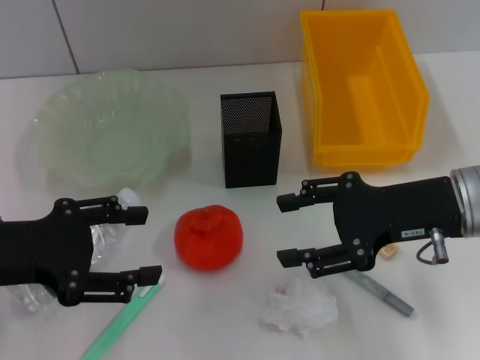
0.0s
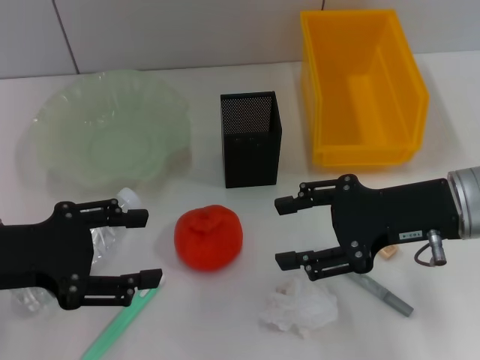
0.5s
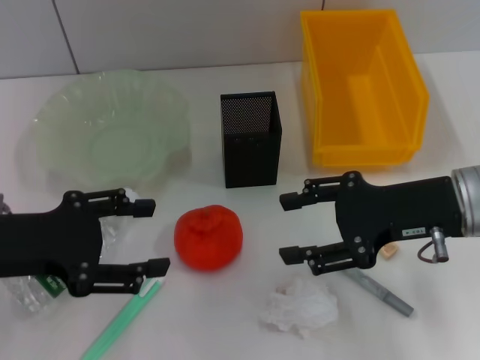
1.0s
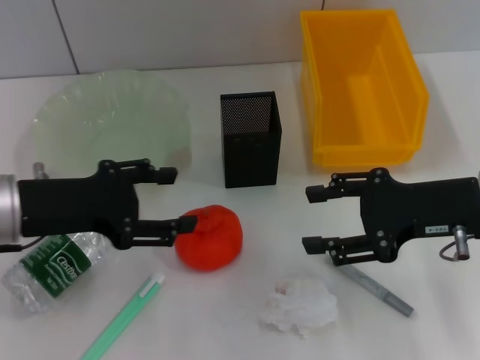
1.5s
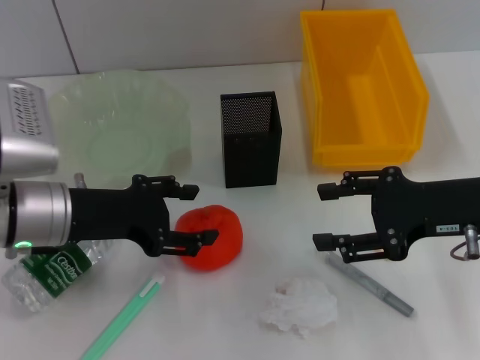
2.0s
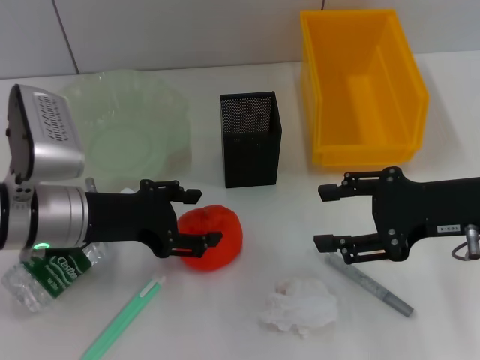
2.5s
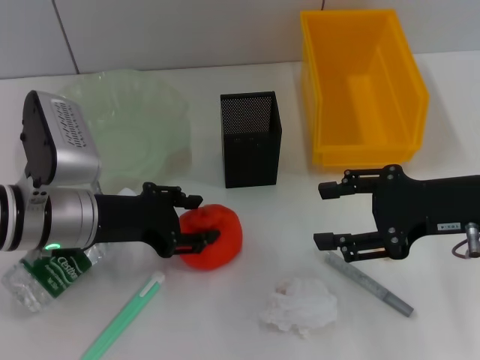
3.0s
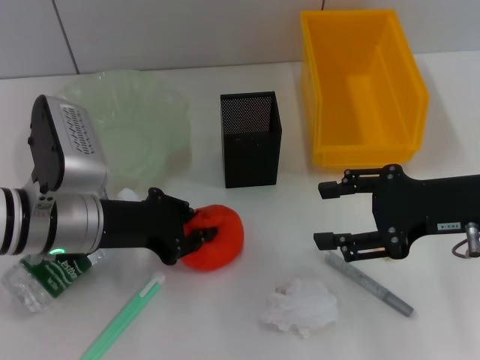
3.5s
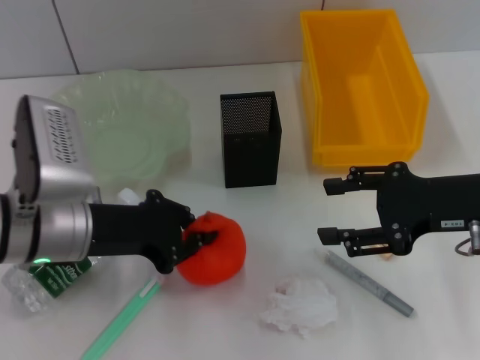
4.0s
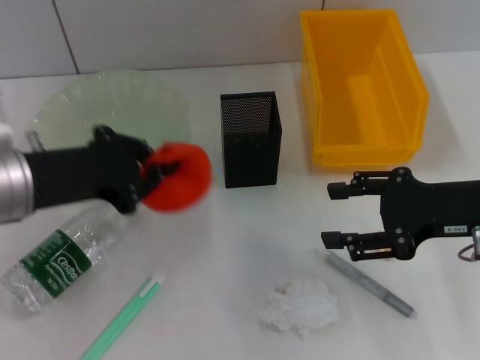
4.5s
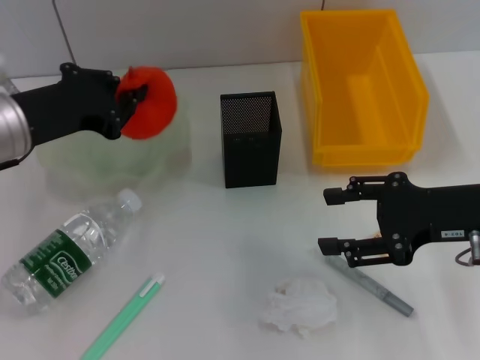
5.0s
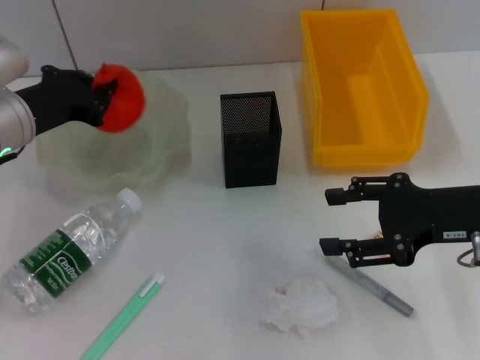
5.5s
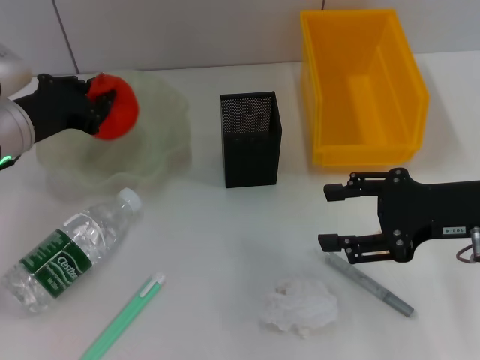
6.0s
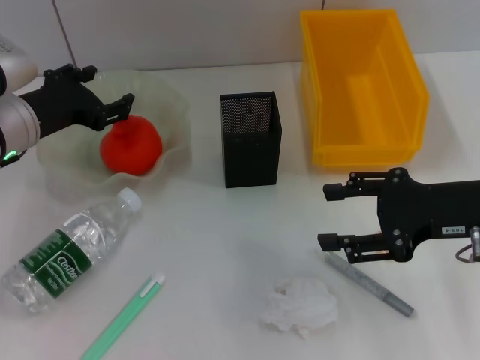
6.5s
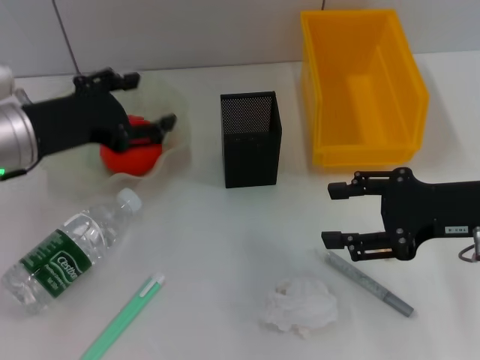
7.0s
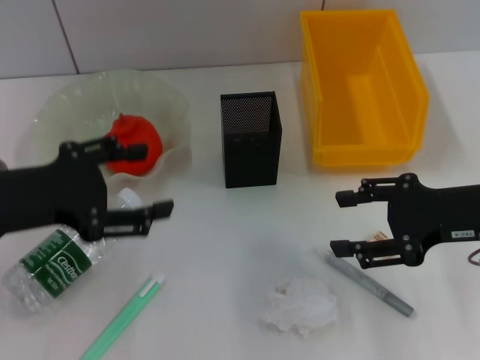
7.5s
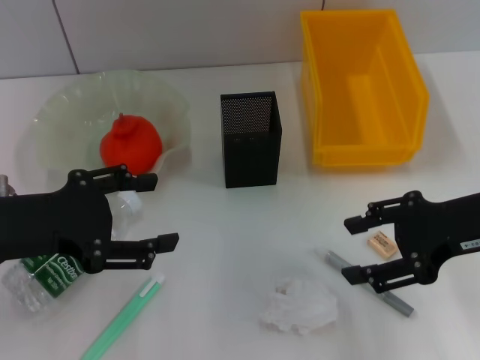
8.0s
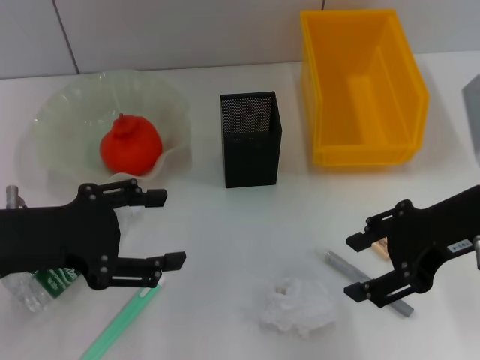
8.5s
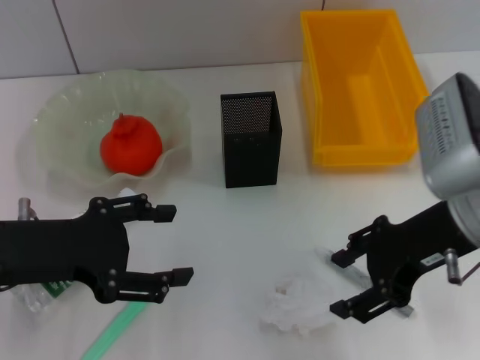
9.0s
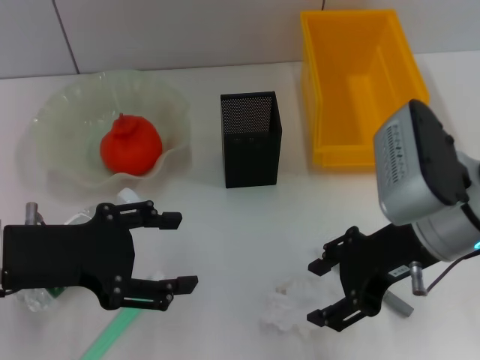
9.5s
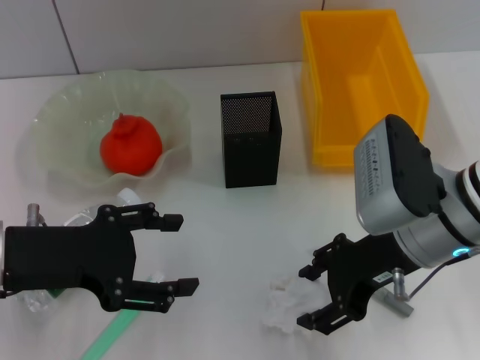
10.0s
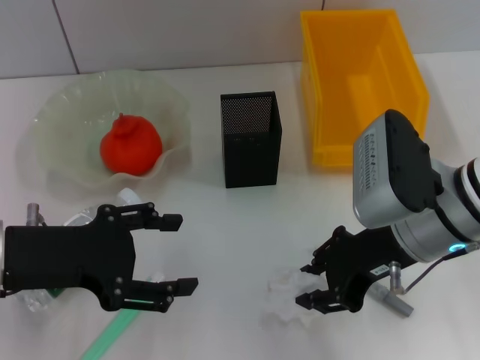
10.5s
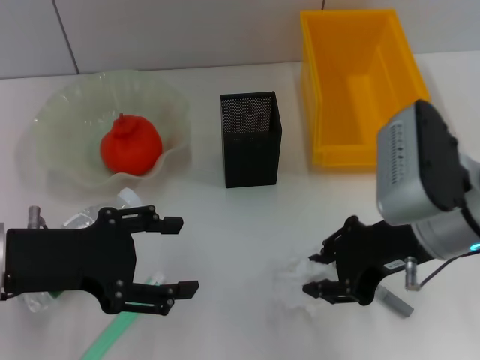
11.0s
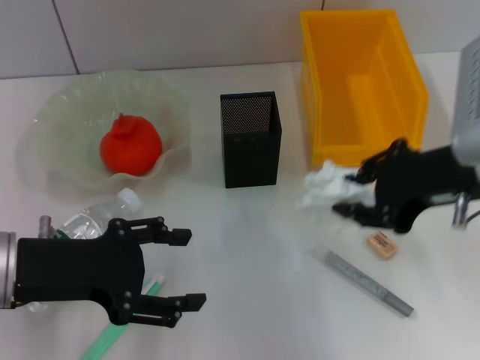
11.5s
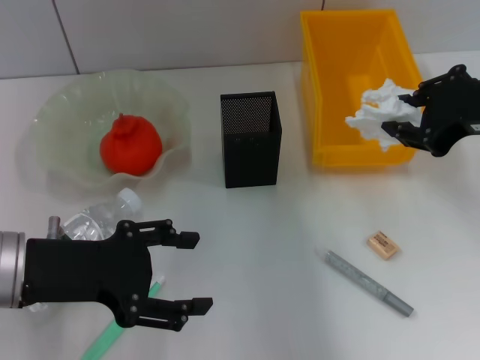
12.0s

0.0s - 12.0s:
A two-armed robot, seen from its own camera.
Step, 0.0s - 3.5s: Grab the orange with the left hand.
Step, 4.0s - 6.0s: Place the orange into the fruit bowl with the left hand.
Step, 6.5s - 10.0s: Grab the paper ball with the right hand.
0.0s - 2.0s: The left gripper heads to the right and forward, covering approximately 10 cm.
2.0s - 4.0s: The left gripper closes.
4.0s - 6.0s: The left gripper goes about 10 cm forward.
6.0s - 8.0s: The left gripper goes about 10 cm backward, and opens.
8.0s - 10.0s: The right gripper heads to the left, covering some 10 cm.
10.0s - 12.0s: The right gripper moves upward and to the right, approximately 10 cm, and closes.

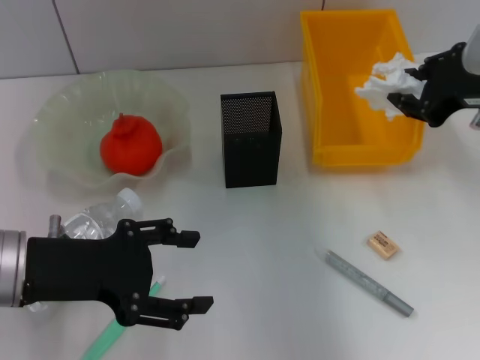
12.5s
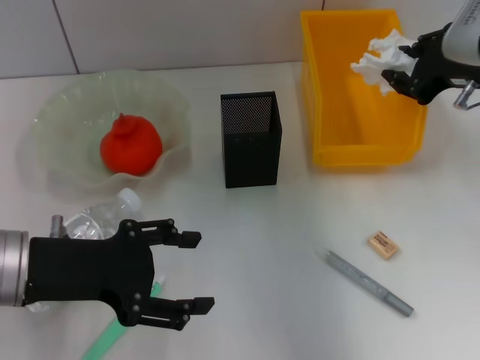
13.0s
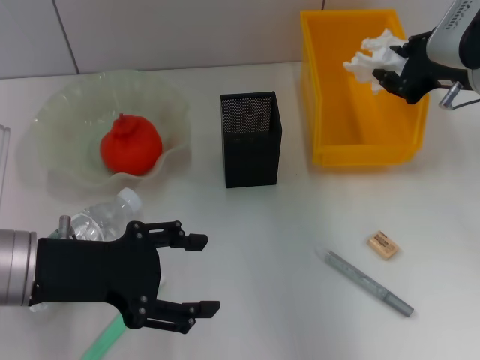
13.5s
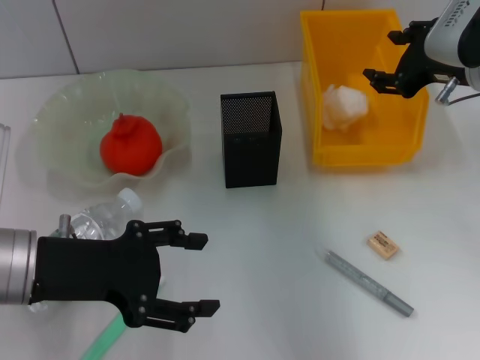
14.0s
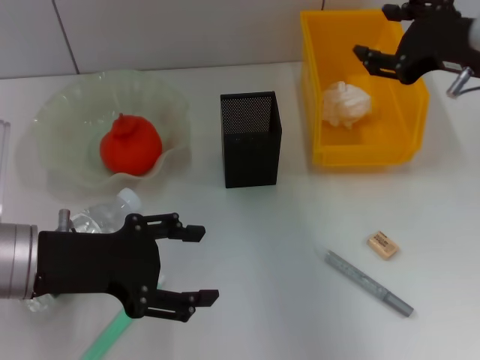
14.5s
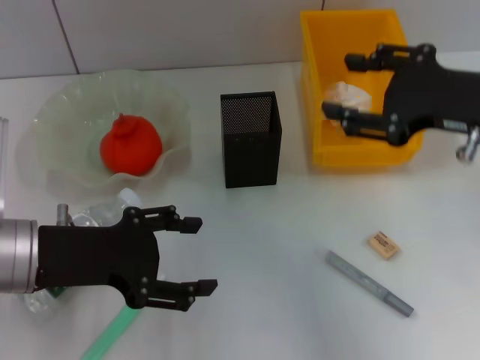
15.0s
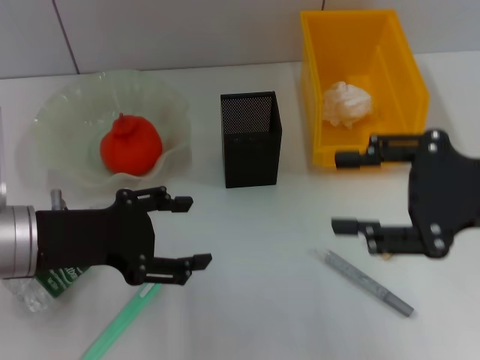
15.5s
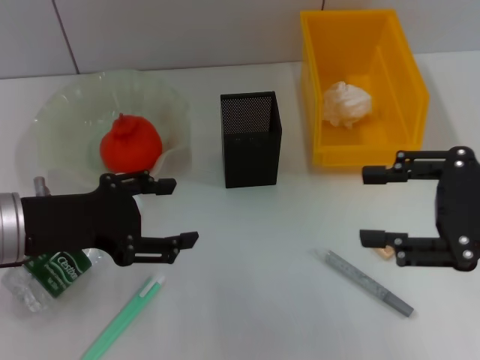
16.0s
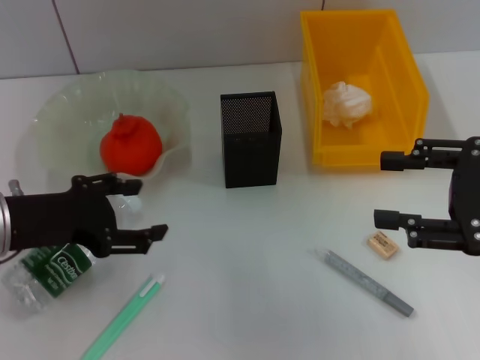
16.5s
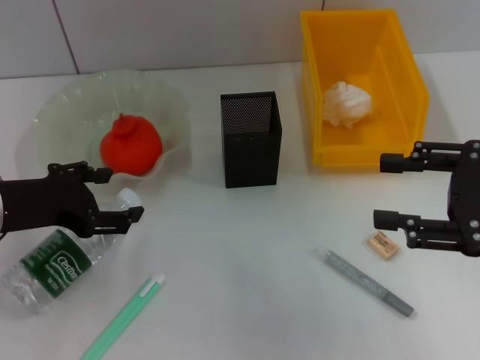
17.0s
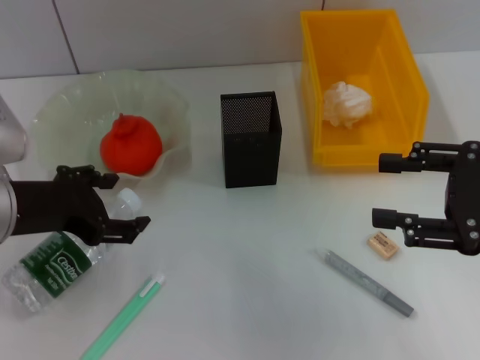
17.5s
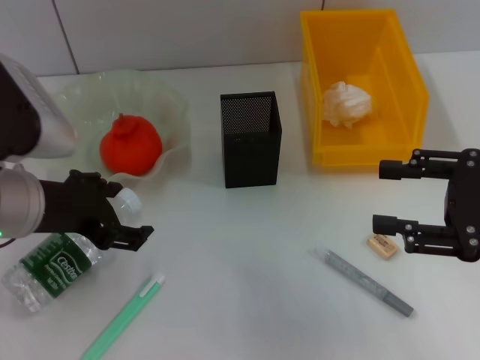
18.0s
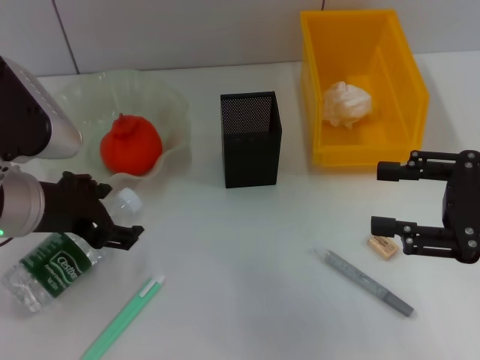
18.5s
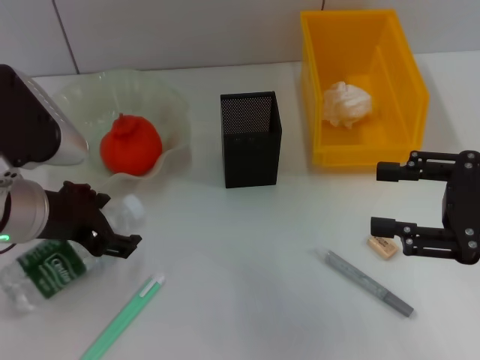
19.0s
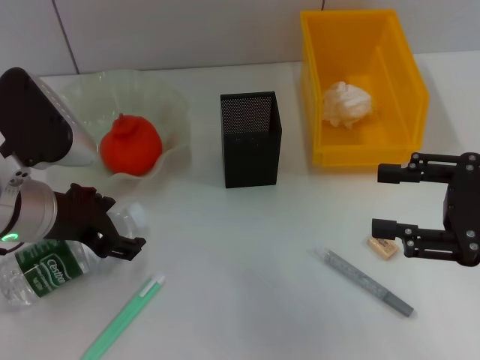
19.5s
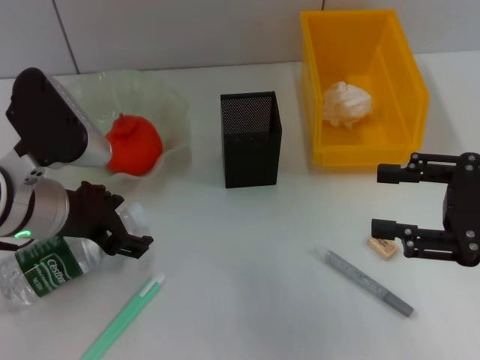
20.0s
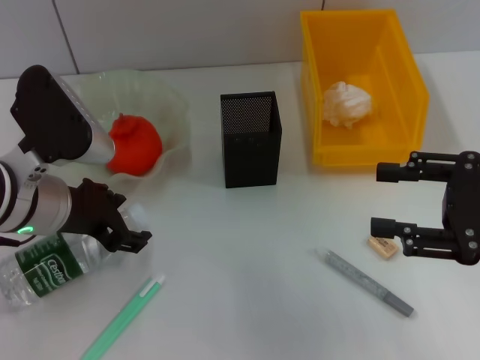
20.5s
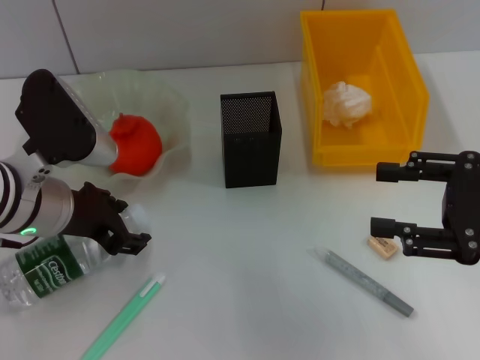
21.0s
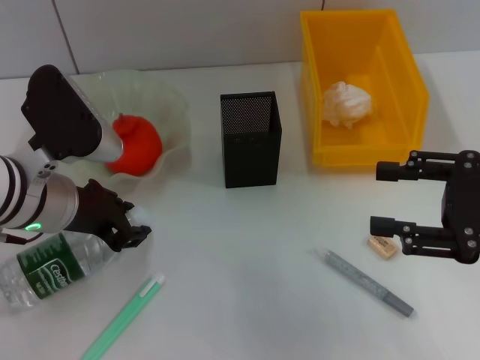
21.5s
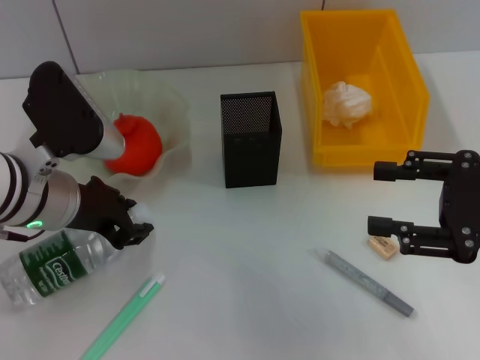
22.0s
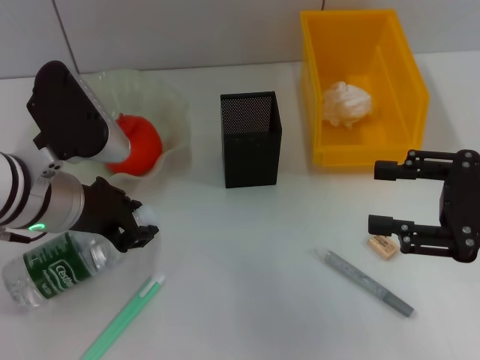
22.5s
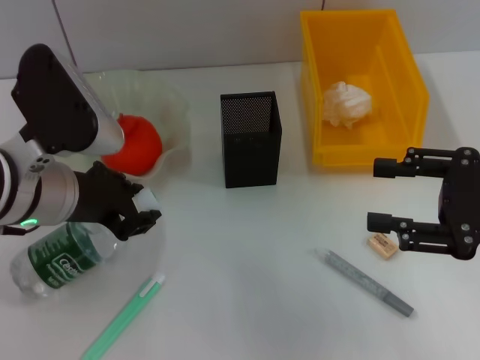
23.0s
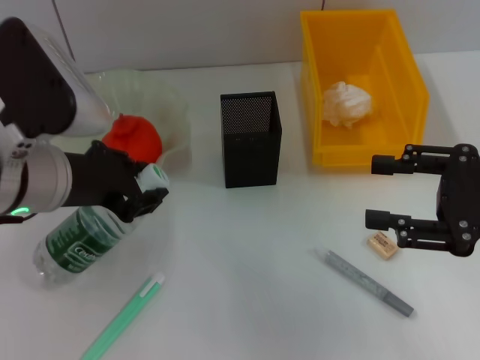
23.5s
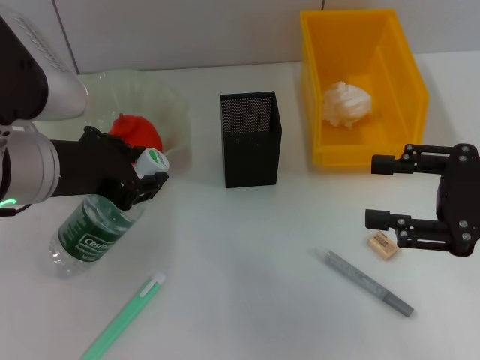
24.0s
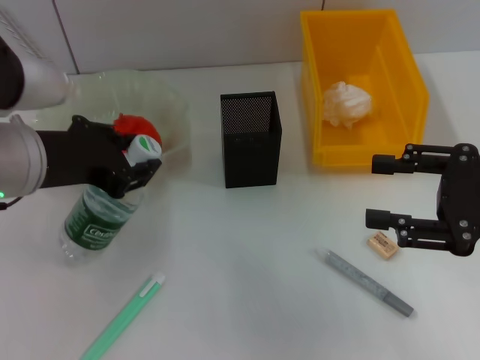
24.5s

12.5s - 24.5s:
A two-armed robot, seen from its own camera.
Step, 12.5s - 14.5s: Place the paper ball into the trash can with the right hand.
Step, 15.0s - 21.5s: Grab the water bottle with the left hand.
12.5s - 14.5s: The right gripper opens.
14.5s - 16.5s: The right gripper shifts about 10 cm backward.
16.5s - 18.5s: The left gripper ends up approximately 5 cm from where it was.
18.5s - 20.5s: The grippers stay close to where they were, moving slightly.
20.5s - 22.5s: The left gripper closes.
22.5s - 24.5s: The left gripper moves upward, roughly 5 cm.

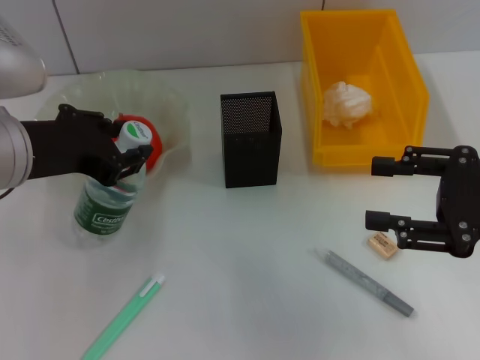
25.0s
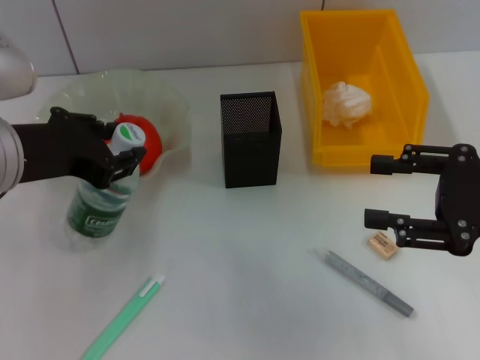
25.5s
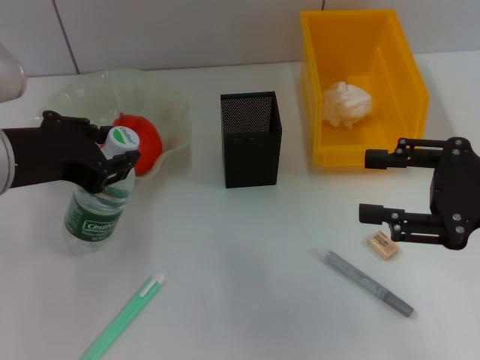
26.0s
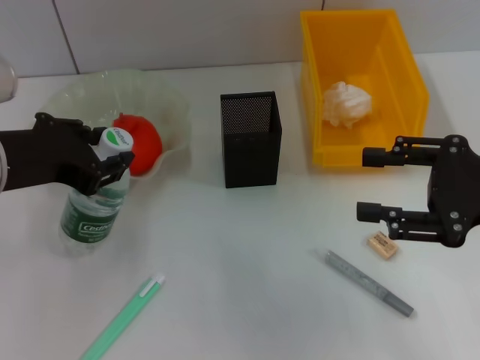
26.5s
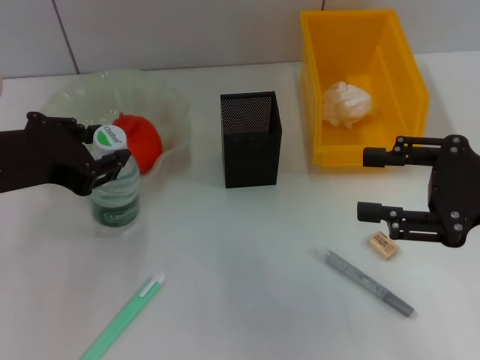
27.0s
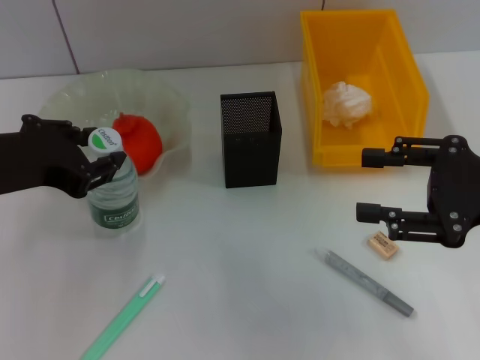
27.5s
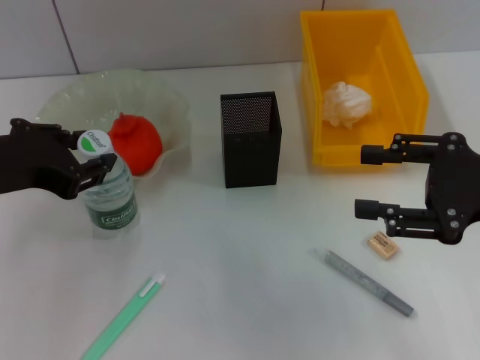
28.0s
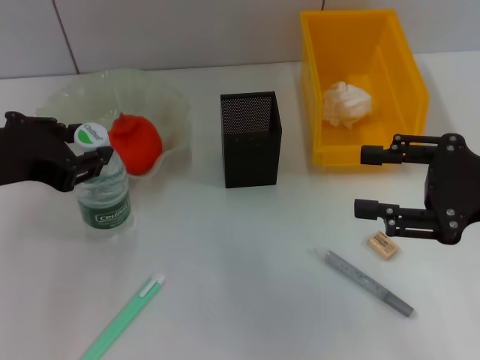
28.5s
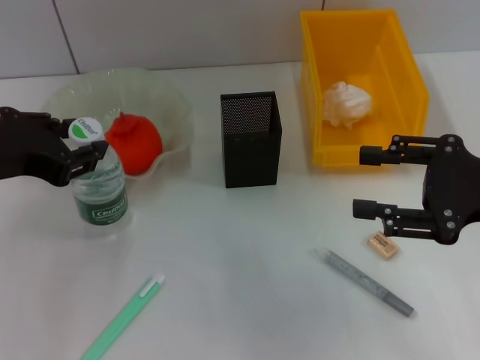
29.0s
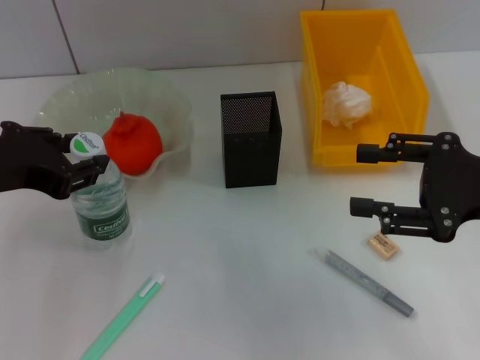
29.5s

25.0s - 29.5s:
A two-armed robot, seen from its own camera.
25.0s - 29.5s: There are only small adjustments of the grippers.
